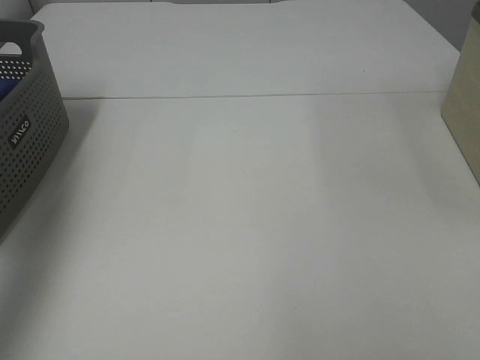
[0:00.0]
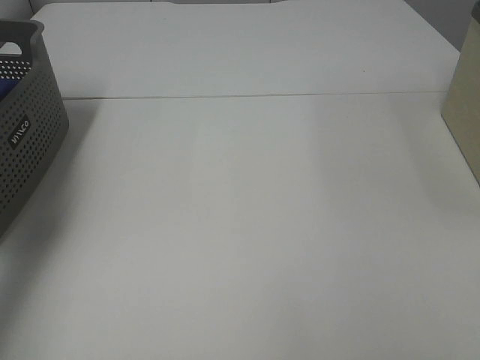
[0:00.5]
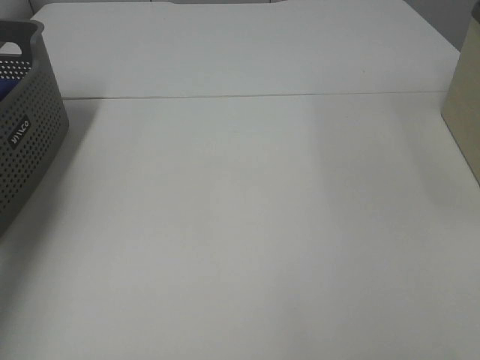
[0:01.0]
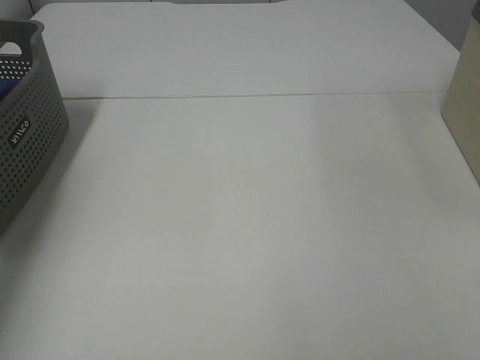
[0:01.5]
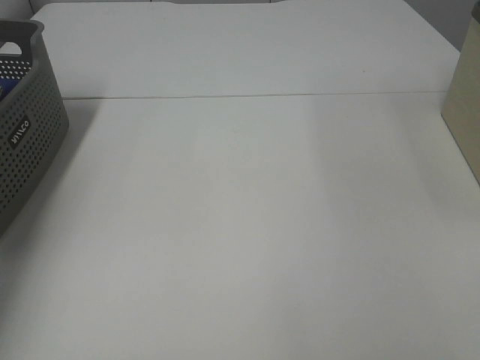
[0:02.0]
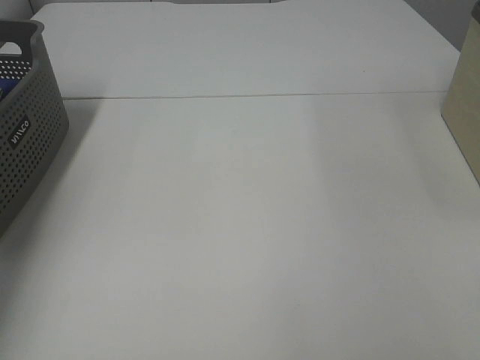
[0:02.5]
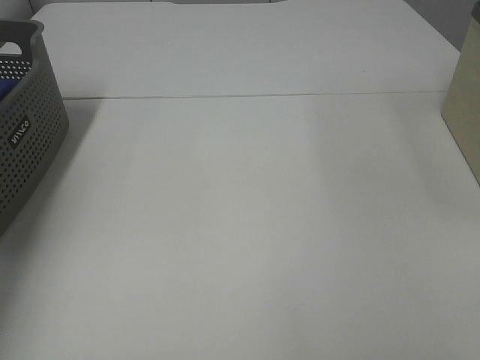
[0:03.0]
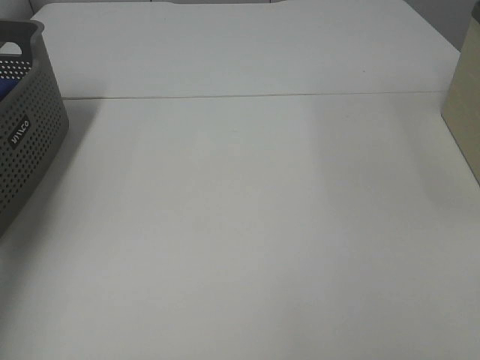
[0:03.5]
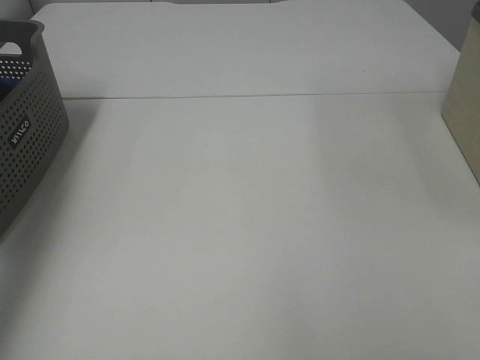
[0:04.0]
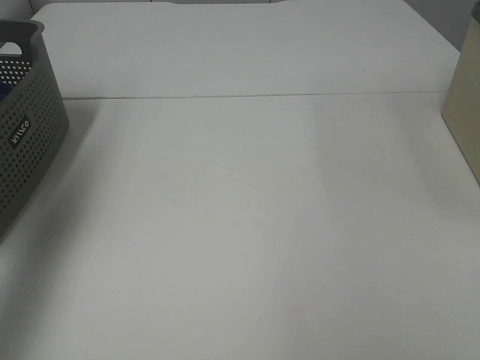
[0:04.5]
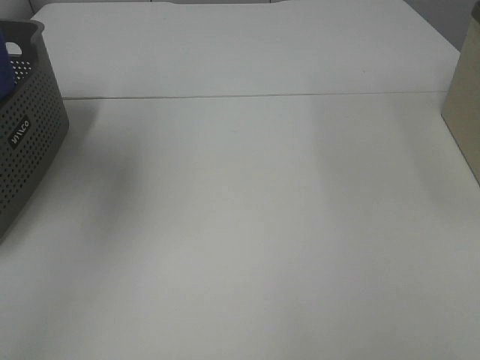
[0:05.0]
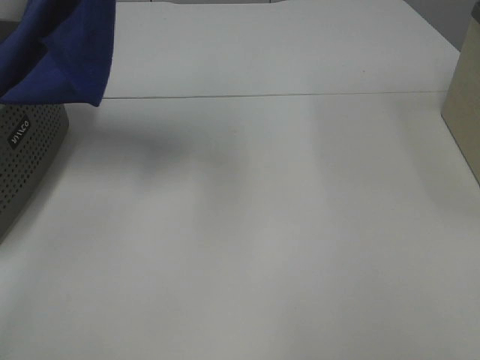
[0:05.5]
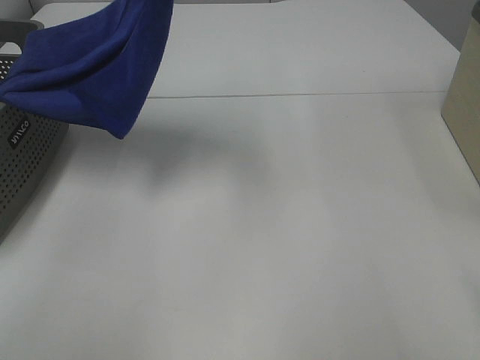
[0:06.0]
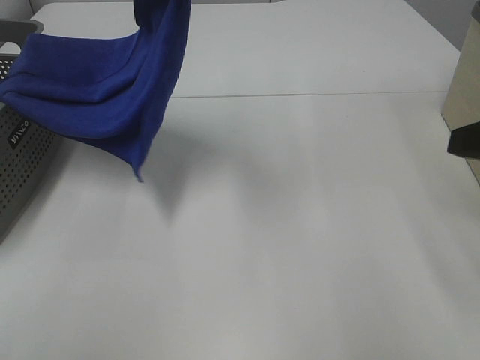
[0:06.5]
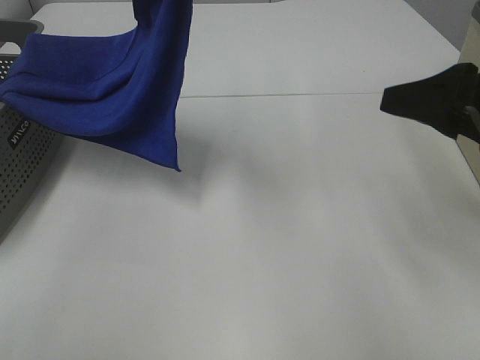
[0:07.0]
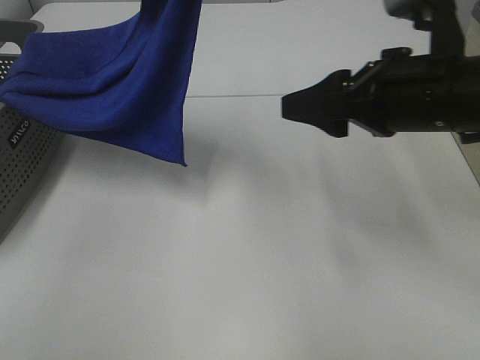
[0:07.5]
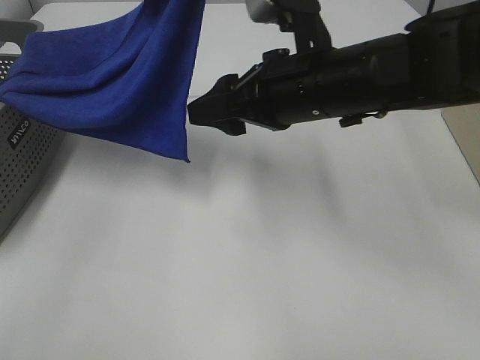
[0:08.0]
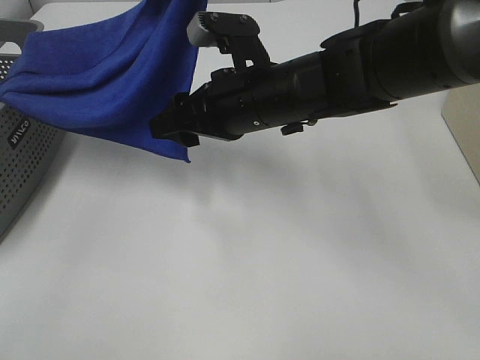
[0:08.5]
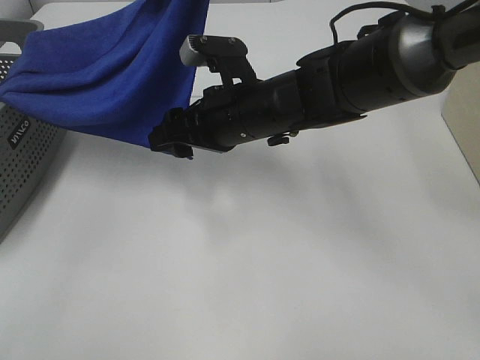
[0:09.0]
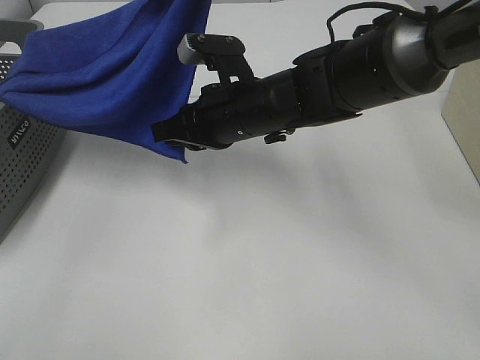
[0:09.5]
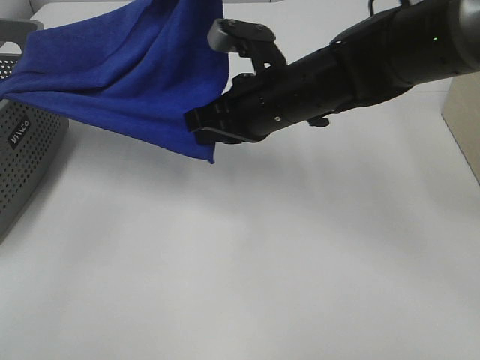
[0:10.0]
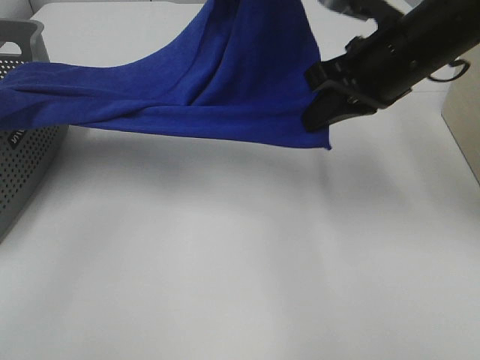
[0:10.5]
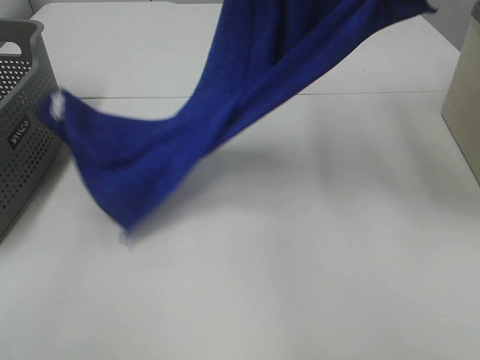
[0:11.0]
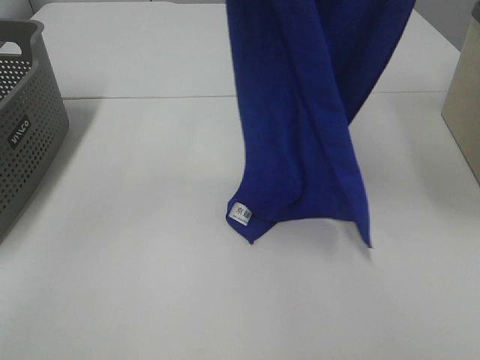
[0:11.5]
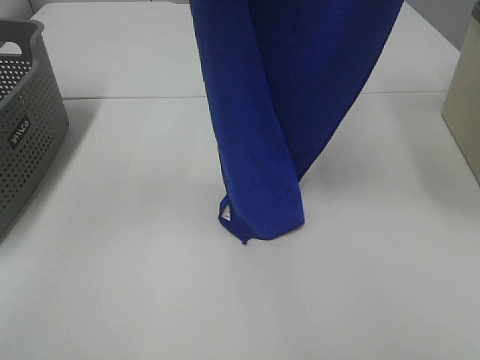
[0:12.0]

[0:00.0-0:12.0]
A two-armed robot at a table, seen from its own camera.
Task of the whole recording: Remove the towel and place it.
Step, 5.0 to 10.5 s: Right hand: grab a corner of the blue towel and straighten it.
0.0 to 2.0 s: The left gripper shifts roughly 25 cm downward and forward.
4.0 to 6.0 s: The left gripper shifts about 30 cm to the right; the right gripper moves forward, some 5 cm.
6.0 to 8.0 s: The right gripper heads forward and to the left, covering roughly 30 cm.
8.0 to 10.0 s: The right gripper closes up.
10.0 to 12.0 s: The right gripper travels upward and to the right by some 35 cm. Meanwhile the left gripper travels upward and backward by approximately 15 cm.

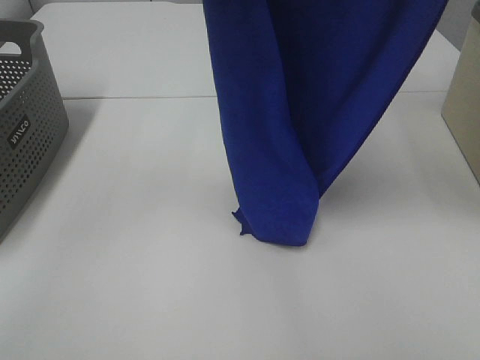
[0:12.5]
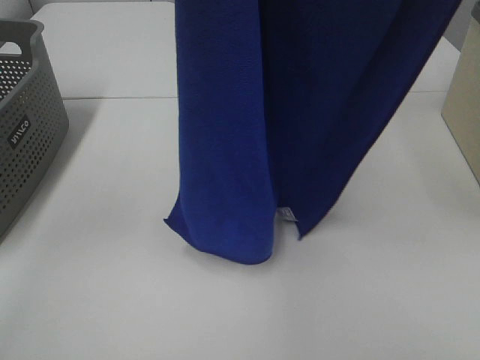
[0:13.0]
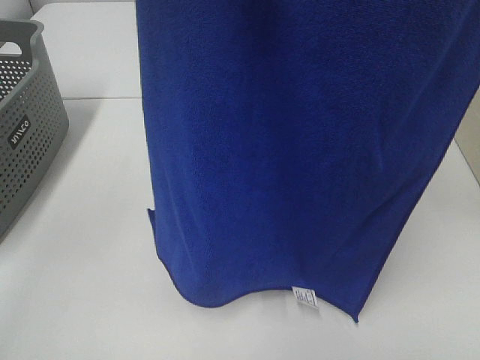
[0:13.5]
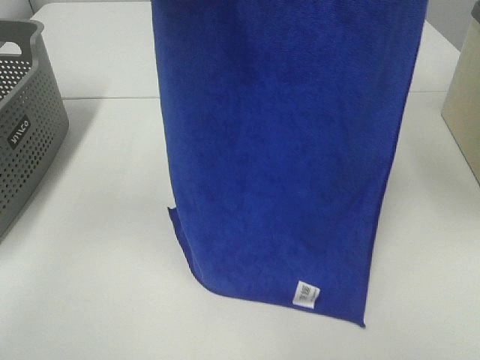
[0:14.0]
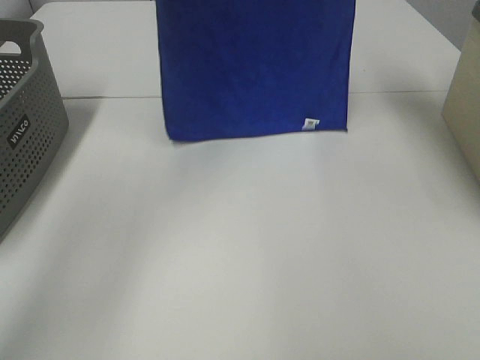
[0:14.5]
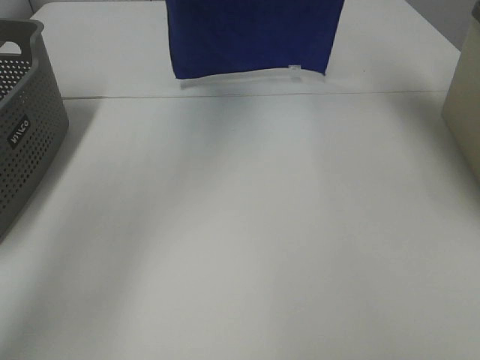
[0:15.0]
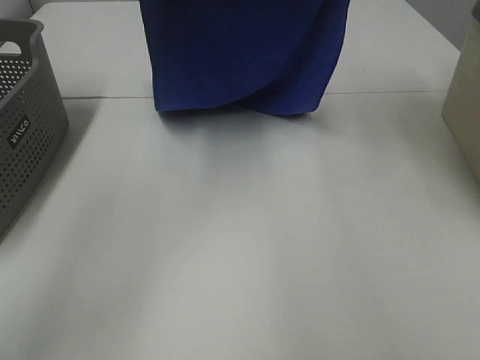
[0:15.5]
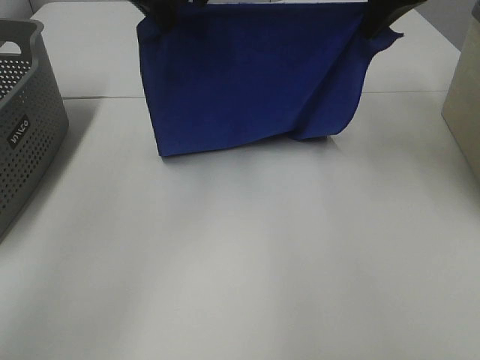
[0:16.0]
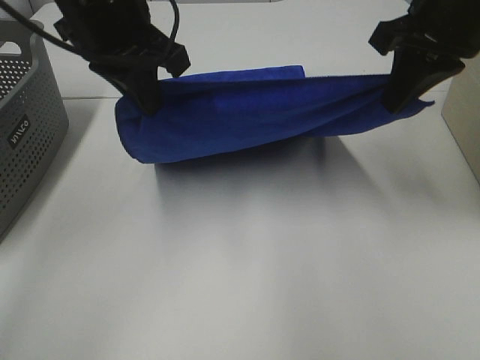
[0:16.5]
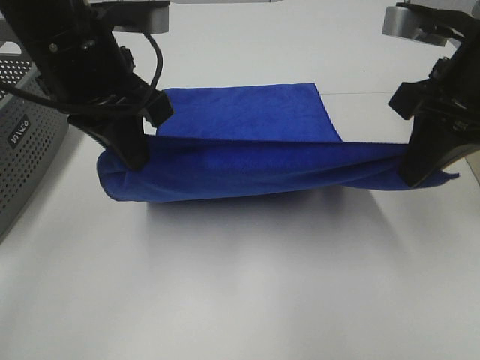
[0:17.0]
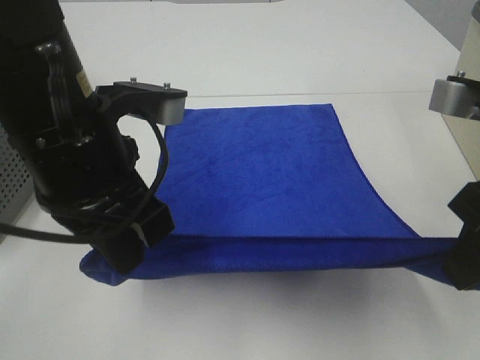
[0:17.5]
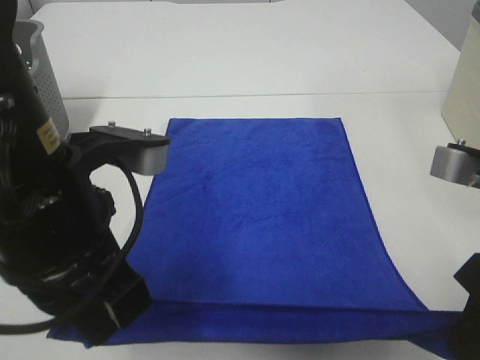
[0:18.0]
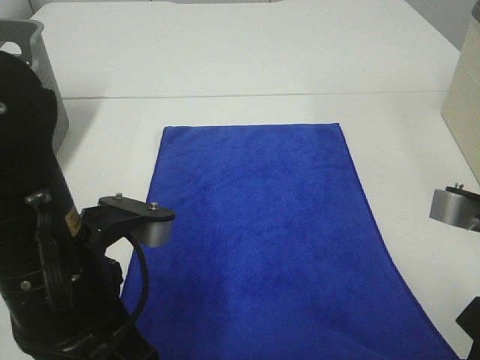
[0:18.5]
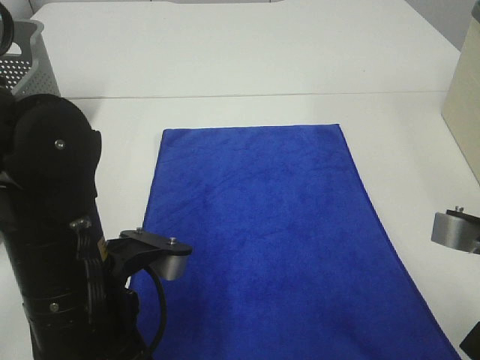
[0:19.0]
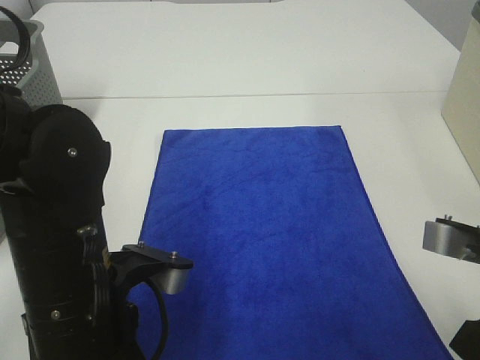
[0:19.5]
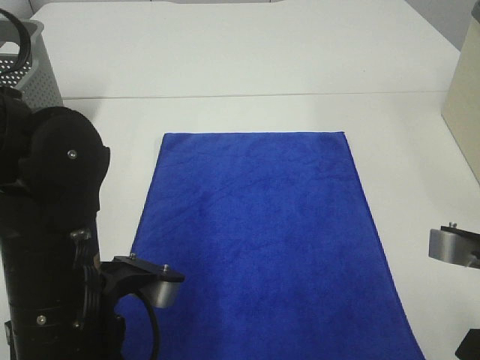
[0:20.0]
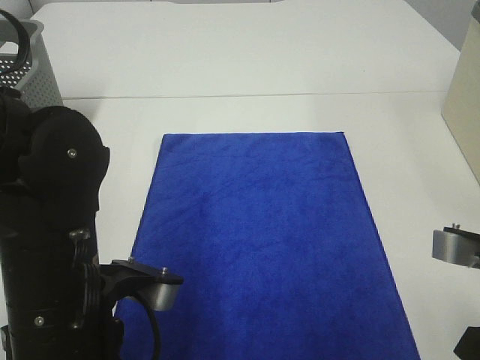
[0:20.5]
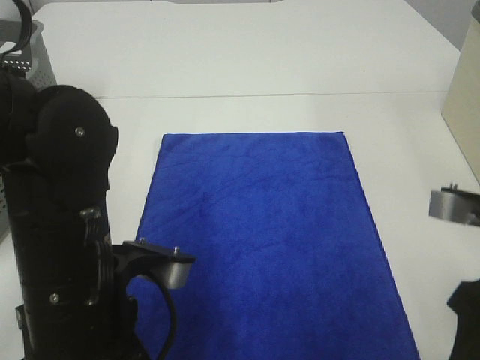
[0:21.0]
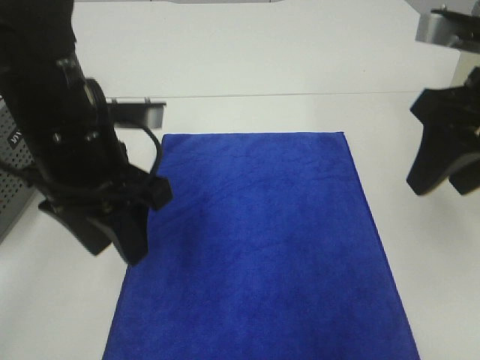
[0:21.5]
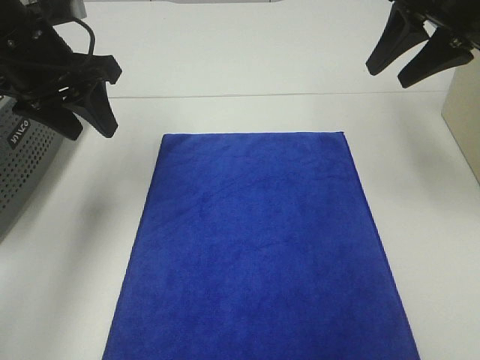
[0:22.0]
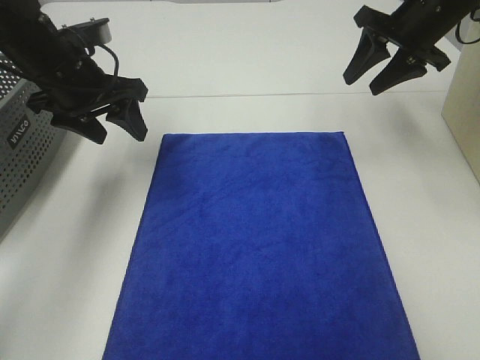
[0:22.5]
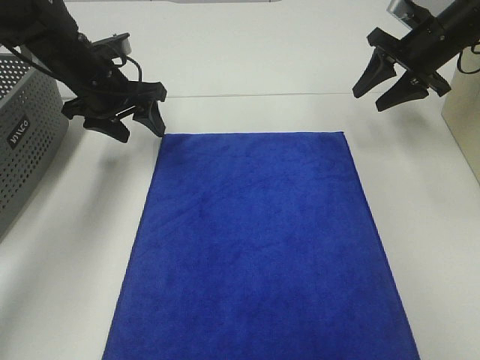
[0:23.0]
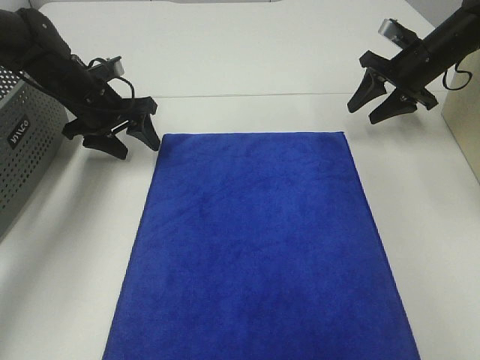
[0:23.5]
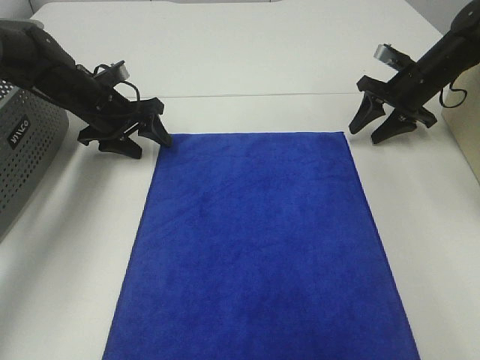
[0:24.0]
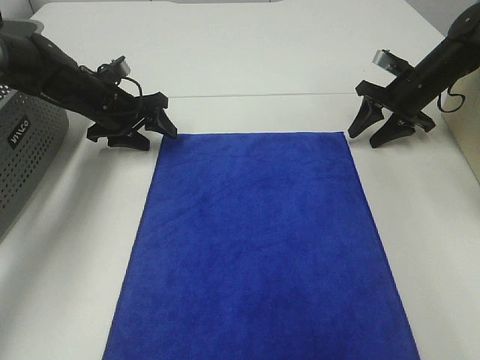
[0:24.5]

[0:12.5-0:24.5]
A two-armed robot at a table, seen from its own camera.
Task of the whole recording: Remove the towel and place it.
Step, 12.5 to 15.5 s: Left hand: spread the blue towel flat on the table.
Step, 12.5 to 15.5 s: Right hand: spread the blue towel flat on the table.
Step, 16.0 to 22.0 s: Left hand:adjust the blue towel.
Step, 16.0 to 22.0 s: Right hand:adjust the blue towel.
12.5 to 14.5 s: The two grippers go approximately 20 cm forward.
14.5 to 16.5 s: The two grippers go approximately 25 cm downward and backward.
16.5 to 18.5 s: The grippers both shift backward and downward by approximately 20 cm.
18.5 to 20.5 s: The left gripper opens up. Meanwhile the right gripper opens its fingers.
20.5 to 22.5 s: The grippers both shift forward by approximately 30 cm.
22.5 to 24.5 s: The right gripper heads downward, forward and to the right, covering about 15 cm. The left gripper moves downward and forward, some 15 cm.

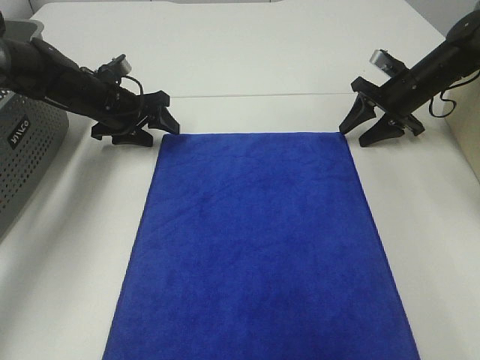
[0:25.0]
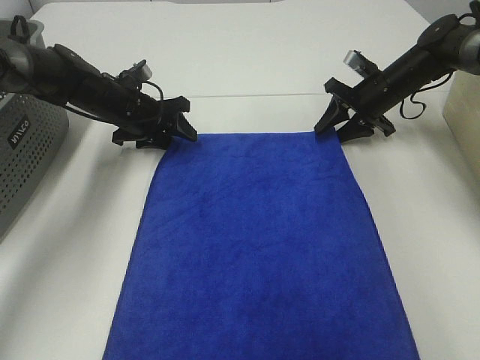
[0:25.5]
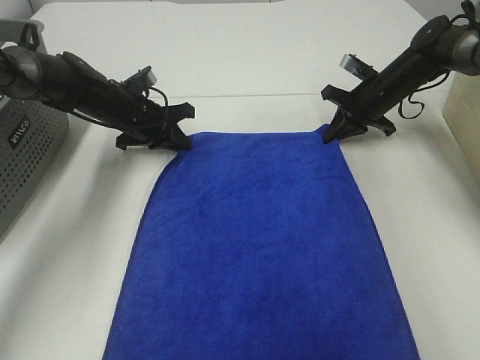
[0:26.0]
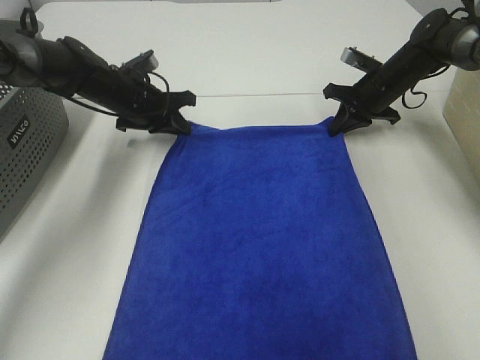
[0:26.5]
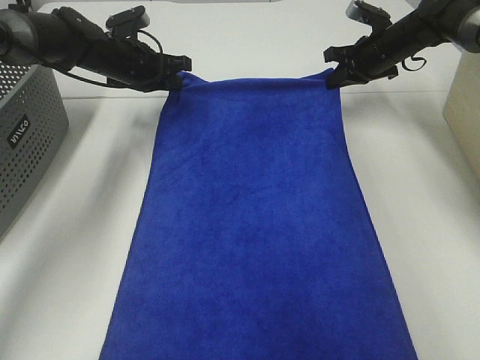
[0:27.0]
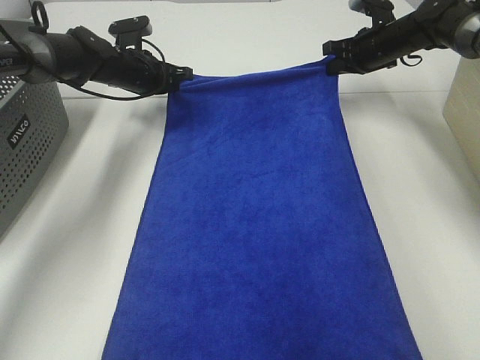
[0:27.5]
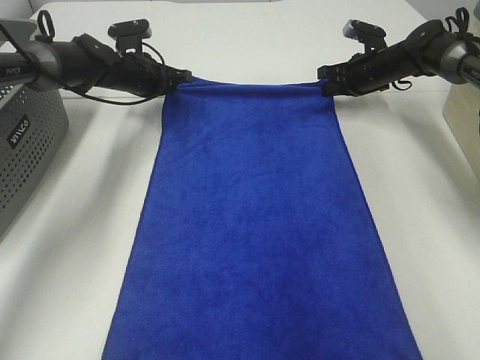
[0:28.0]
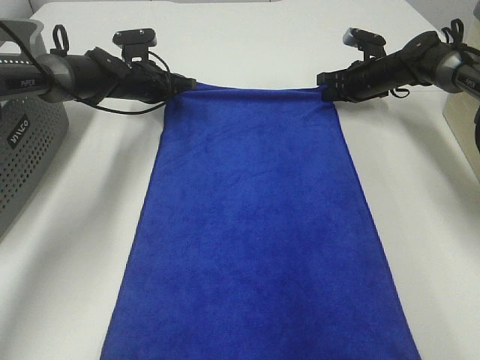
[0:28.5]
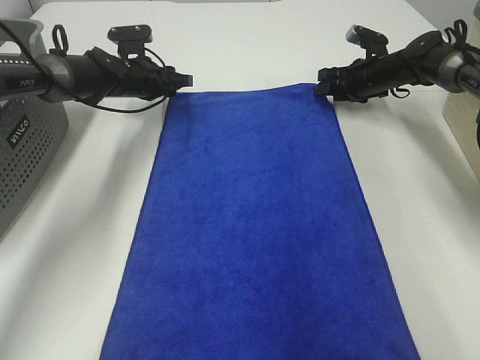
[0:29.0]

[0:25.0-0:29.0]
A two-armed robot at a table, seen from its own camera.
Task of the whole recording: Remove the towel and place it.
25.0 to 27.0 s: The left gripper goes approximately 5 cm upward, and closes up, while the right gripper is displaced upward and forward by about 5 cm, and closes up.
27.0 to 29.0 s: Both grippers move downward, about 5 cm. The right gripper opens, while the left gripper opens.
